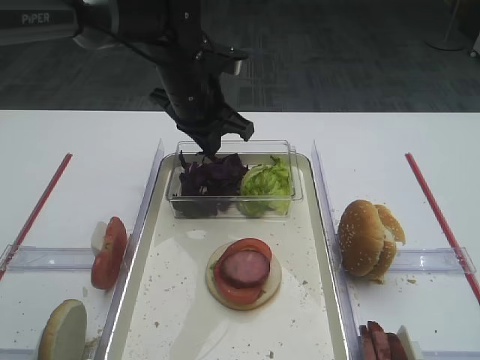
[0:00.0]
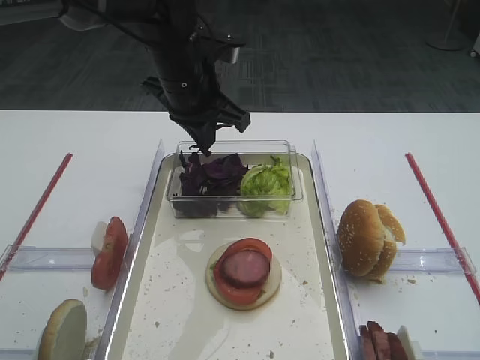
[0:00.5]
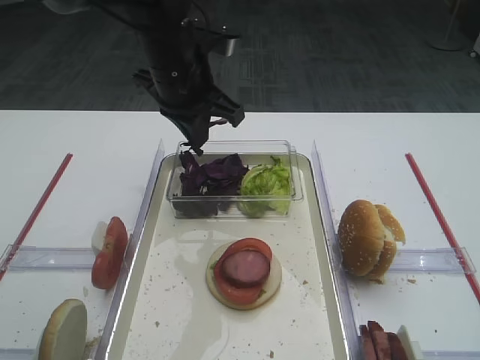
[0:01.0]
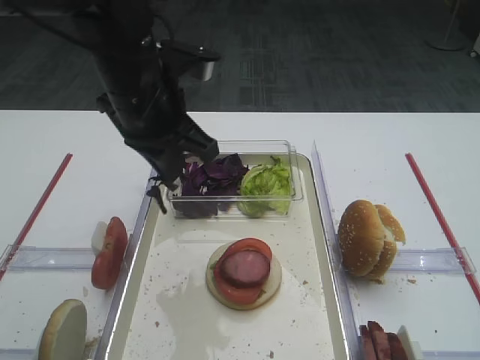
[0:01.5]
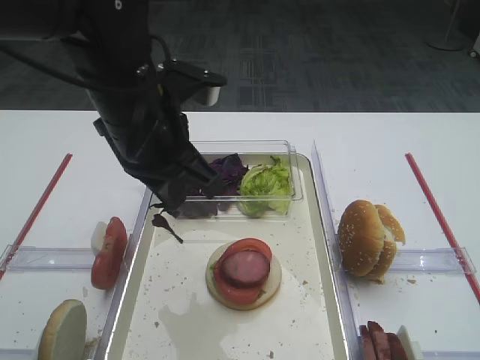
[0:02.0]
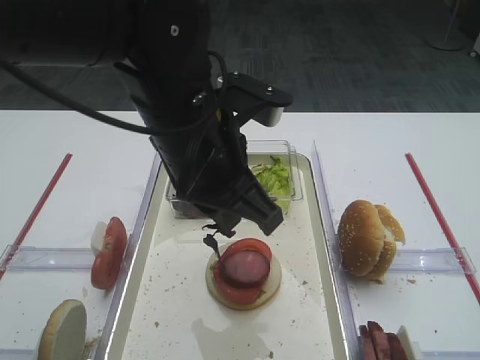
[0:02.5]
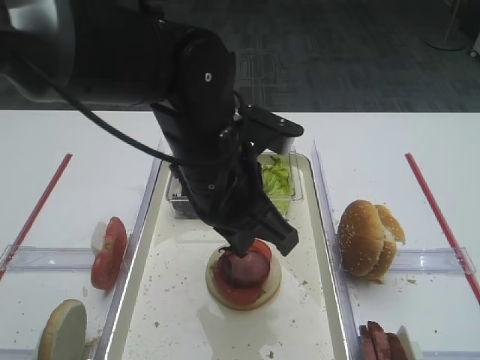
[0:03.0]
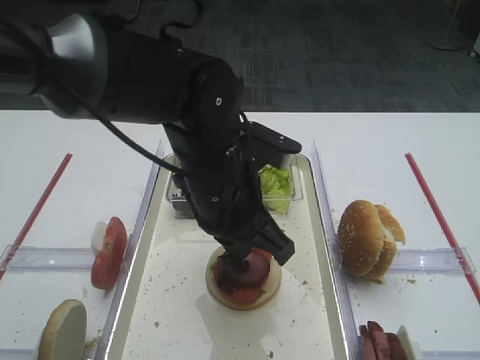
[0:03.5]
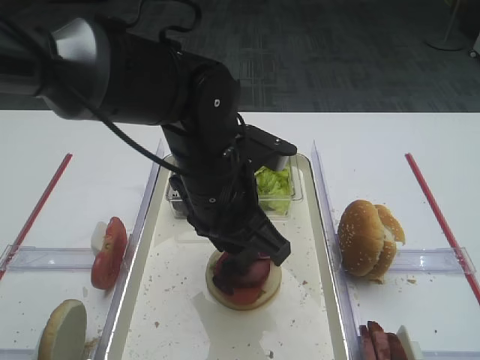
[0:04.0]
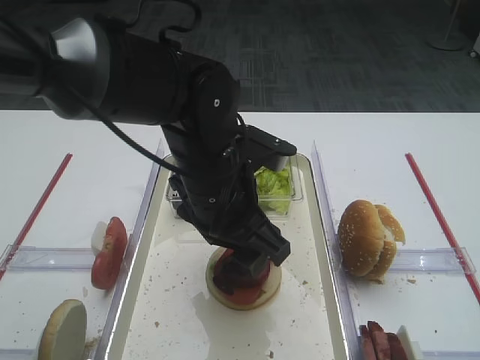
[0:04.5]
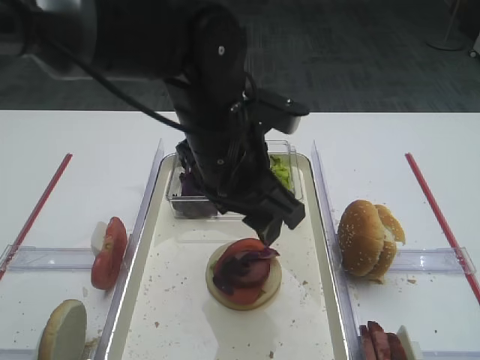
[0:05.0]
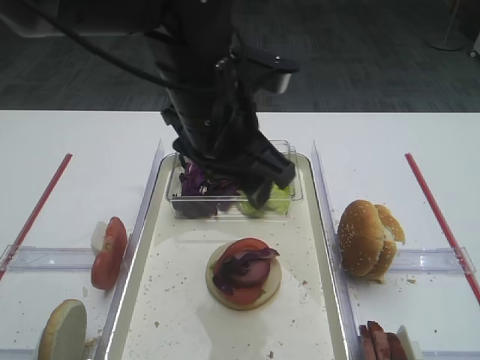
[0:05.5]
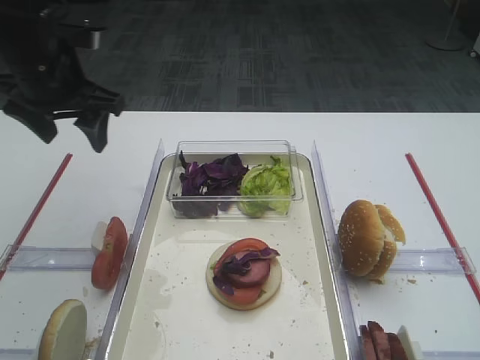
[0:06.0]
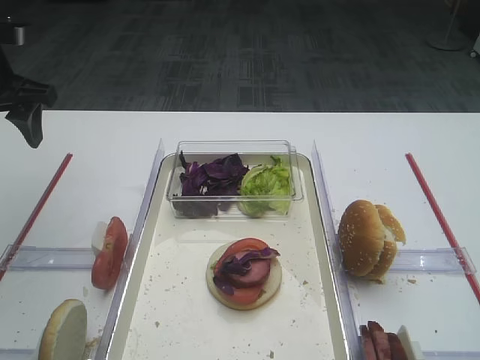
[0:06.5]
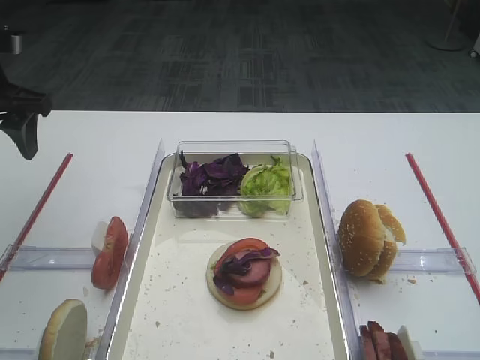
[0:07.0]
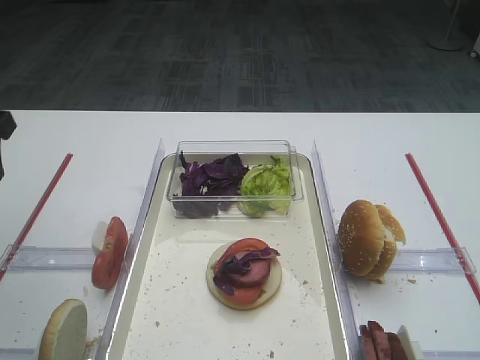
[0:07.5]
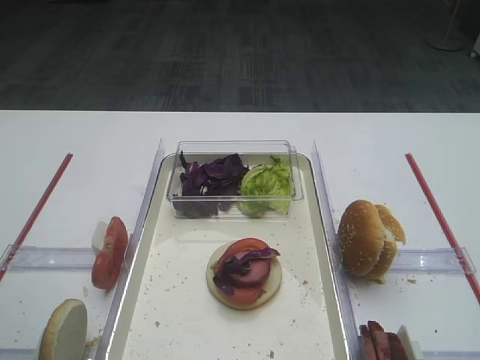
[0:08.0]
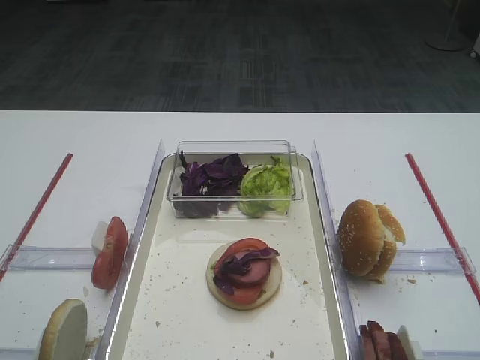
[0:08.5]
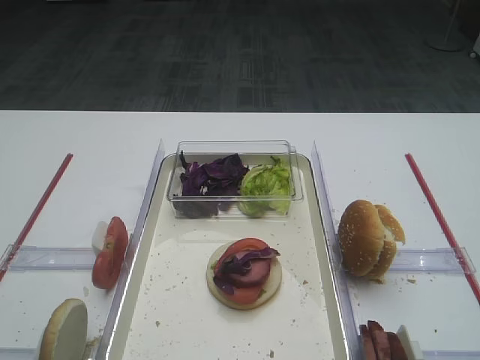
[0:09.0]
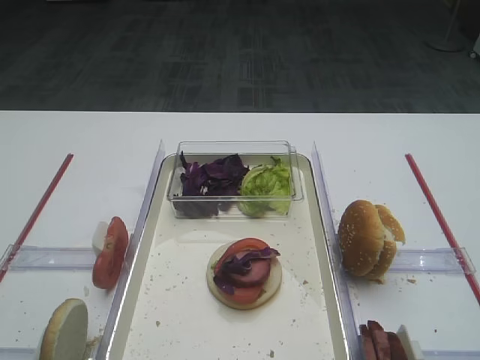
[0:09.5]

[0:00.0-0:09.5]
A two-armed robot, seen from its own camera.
Step, 0:01.5 to 0:05.0: Place the purple cabbage on the cutlet with the left gripper.
0:00.0 to 0:02.0: The left gripper moves backward, about 15 cm.
0:02.0 to 0:04.0: The left gripper heads to the right and downward, covering some 10 cm.
0:04.0 to 0:05.5: The left gripper moves upward, some 5 cm, and opens.
0:05.5 to 0:07.5: The left gripper travels to the left by approximately 25 cm.
0:07.5 to 0:09.5: The left gripper travels backward by about 30 cm.

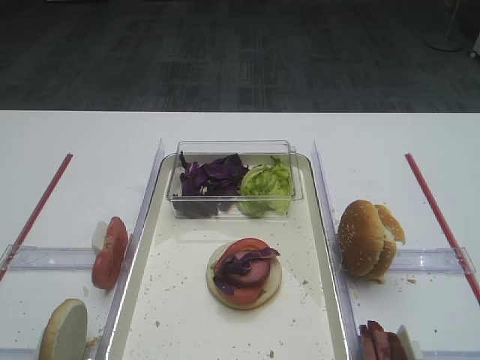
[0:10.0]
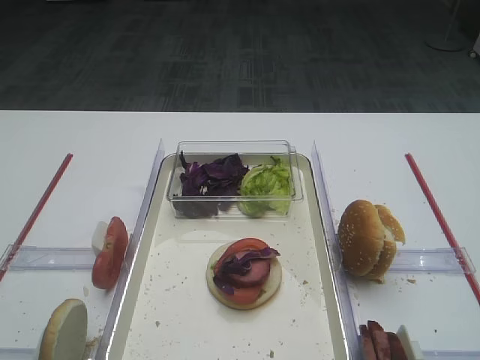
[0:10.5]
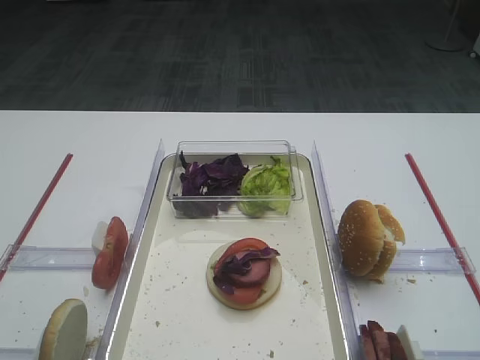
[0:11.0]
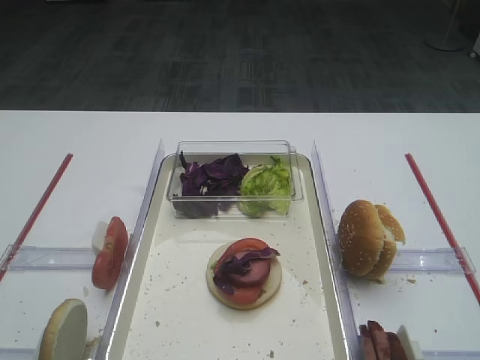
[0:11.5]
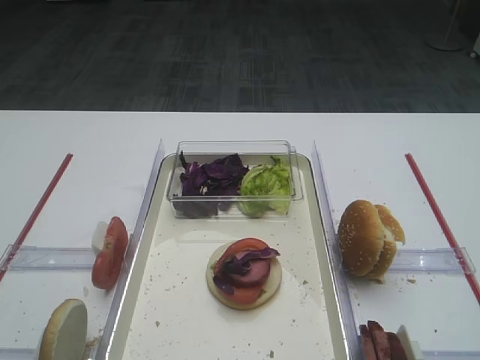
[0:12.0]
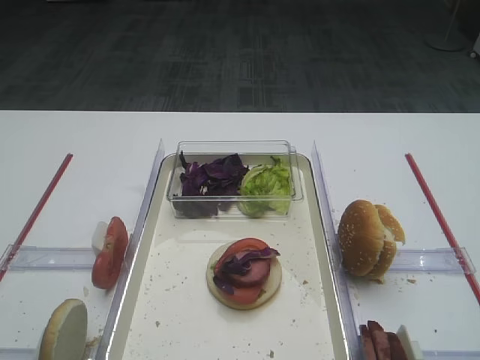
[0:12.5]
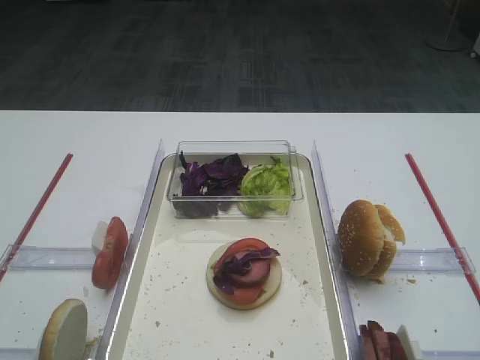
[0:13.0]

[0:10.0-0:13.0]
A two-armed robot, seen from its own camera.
0:10.0 to 0:13.0: The two grippers keep their place.

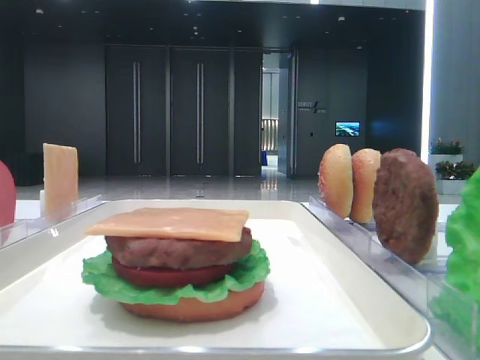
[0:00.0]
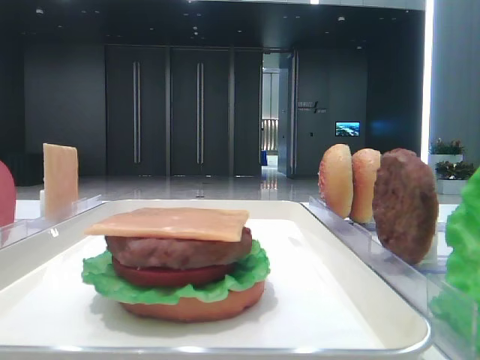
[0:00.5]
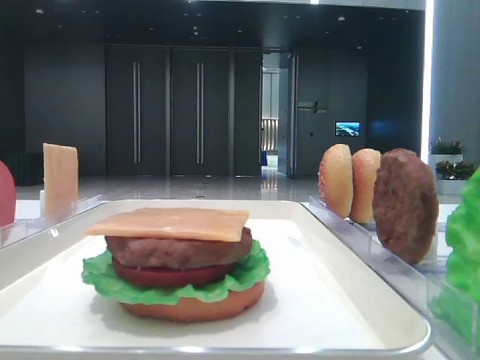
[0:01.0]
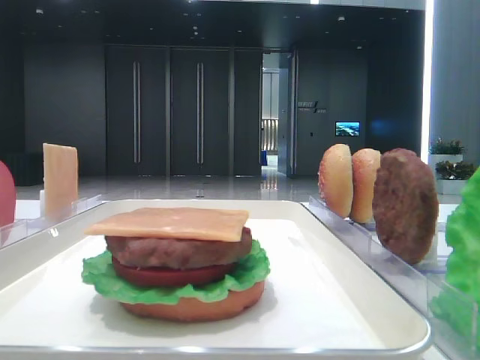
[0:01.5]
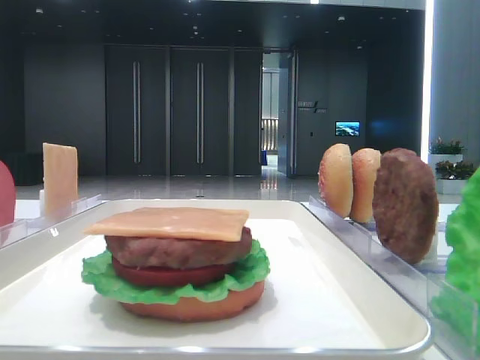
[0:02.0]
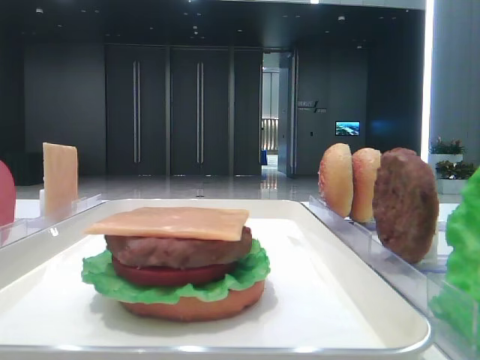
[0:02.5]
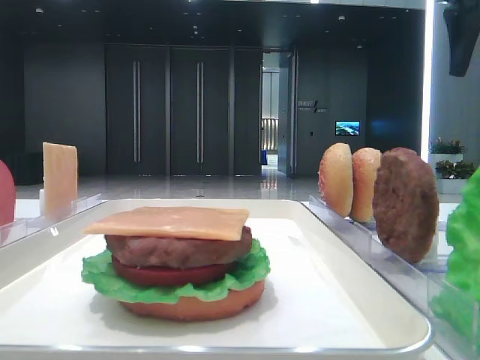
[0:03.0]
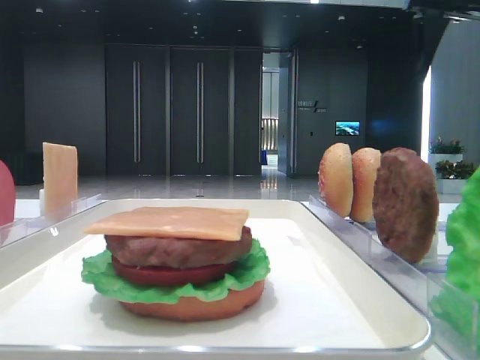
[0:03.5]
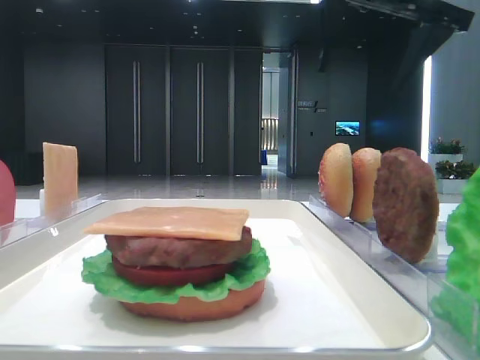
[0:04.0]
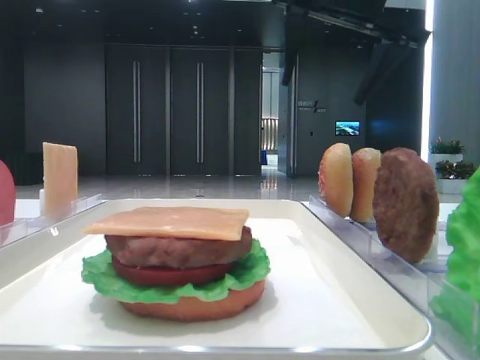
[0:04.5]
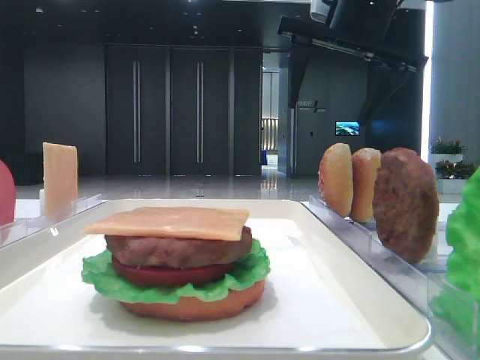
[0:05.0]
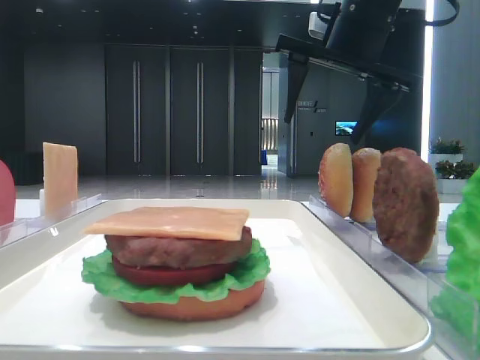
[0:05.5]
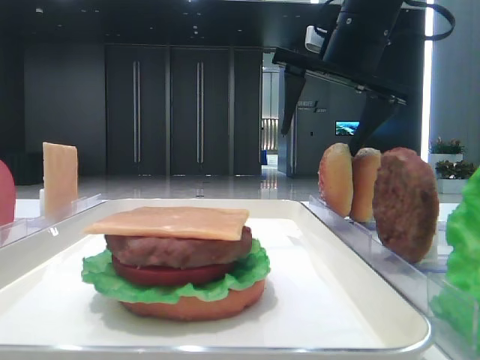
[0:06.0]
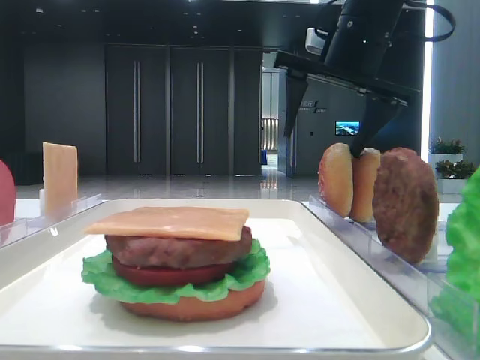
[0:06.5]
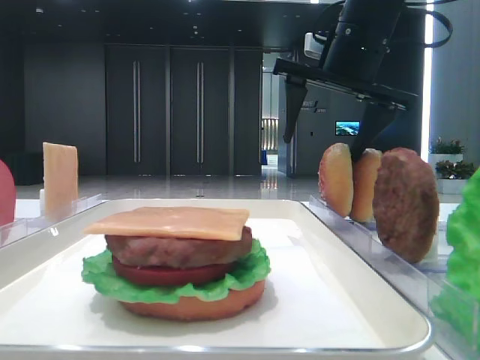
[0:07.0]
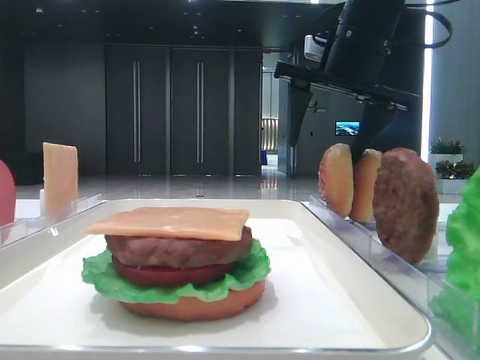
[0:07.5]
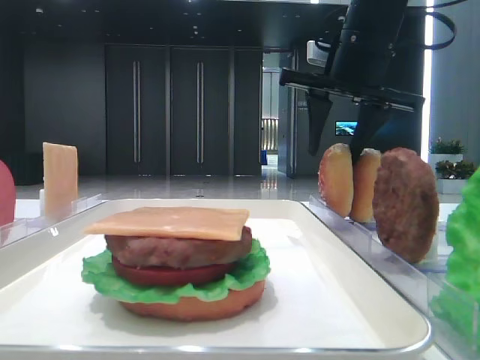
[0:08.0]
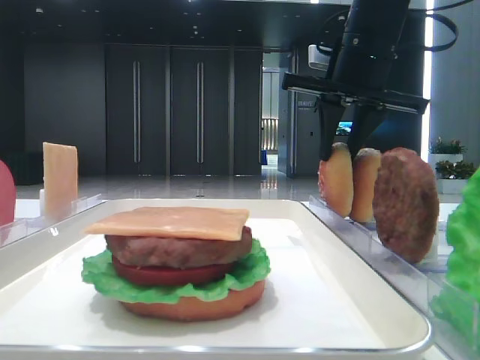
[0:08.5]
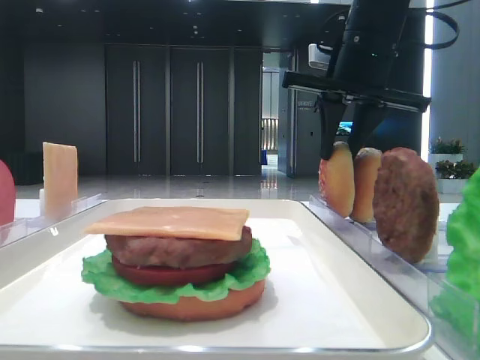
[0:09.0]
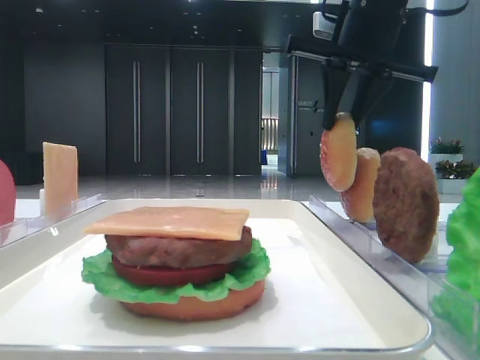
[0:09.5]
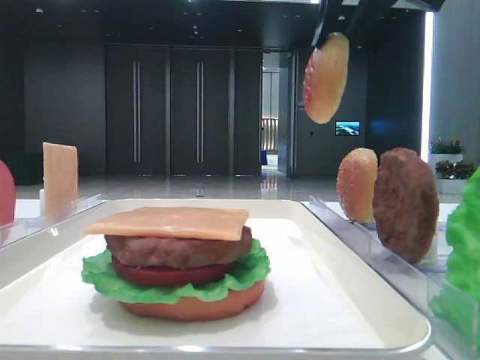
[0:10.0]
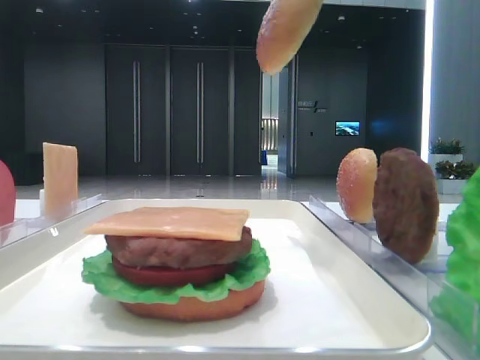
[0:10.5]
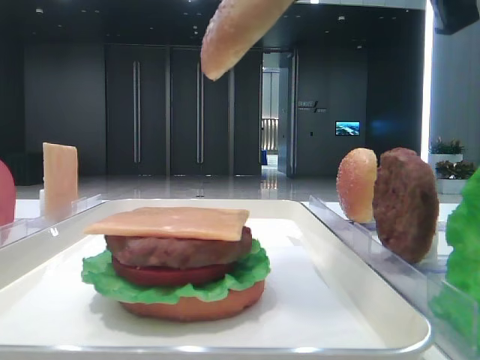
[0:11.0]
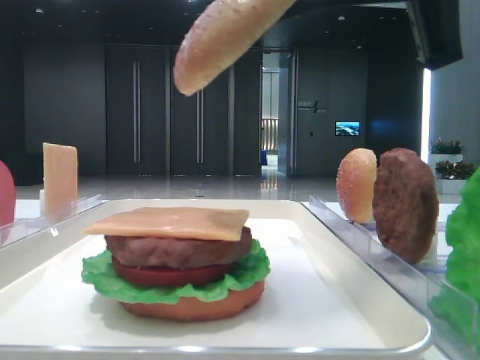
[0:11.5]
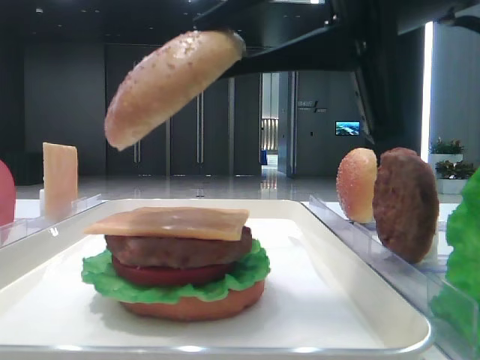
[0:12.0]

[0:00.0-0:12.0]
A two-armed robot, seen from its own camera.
Step, 0:00.0 to 0:08.5: Pick up the top bread slice with the right hand.
0:02.0 to 0:04.0: The right gripper goes about 25 cm forward and to the left.
0:04.0 to 0:06.0: The right gripper heads downward, covering about 5 cm.
0:06.0 to 0:08.0: The right gripper closes its fingers.
0:08.0 to 0:10.0: The right gripper moves upward and backward, about 10 cm, and closes up.
0:10.0 to 0:12.0: The right gripper heads backward and downward, covering some 20 cm.

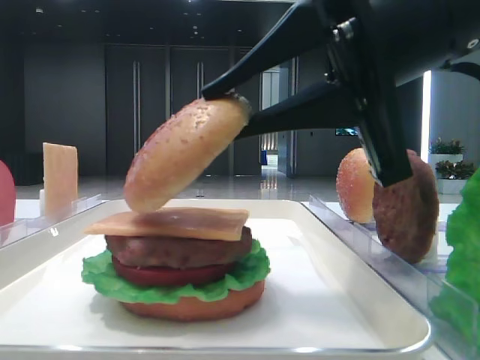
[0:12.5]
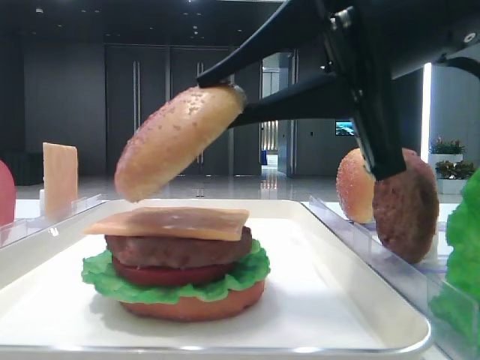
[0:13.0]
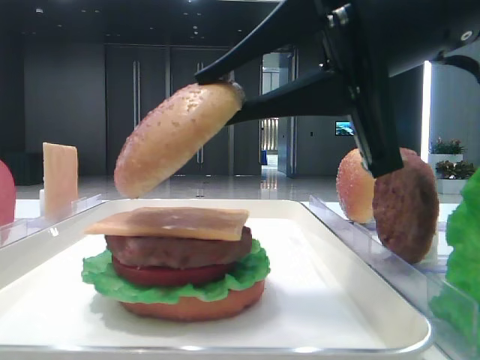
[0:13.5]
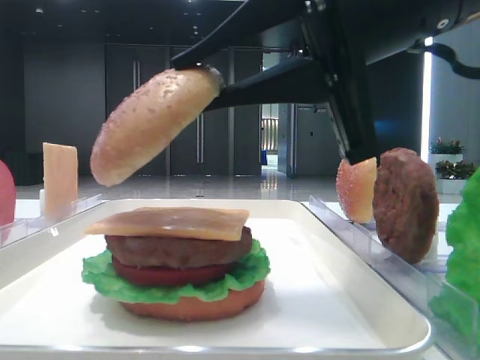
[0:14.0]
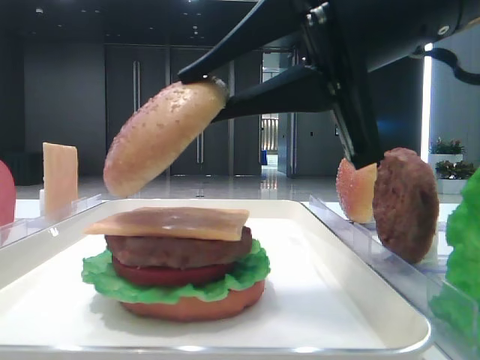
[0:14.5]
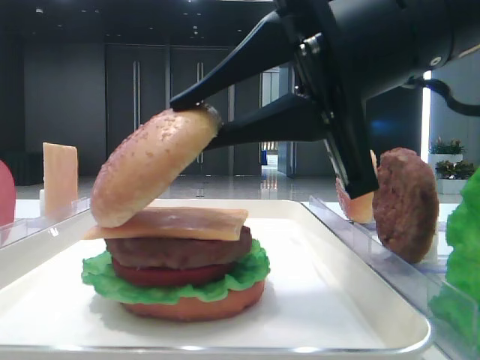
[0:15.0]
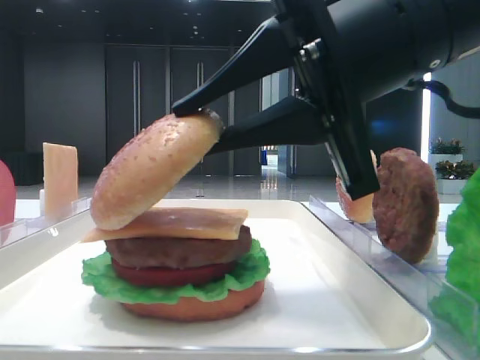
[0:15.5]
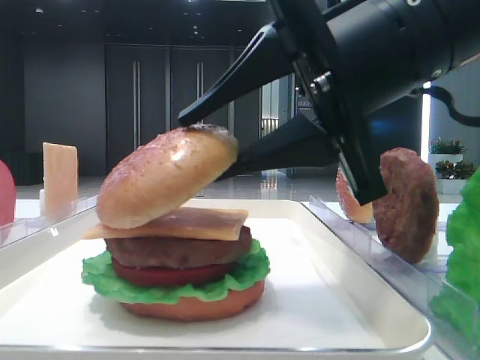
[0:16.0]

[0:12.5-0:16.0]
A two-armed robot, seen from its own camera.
0:12.5 to 0:16.0: The grippers make only small movements.
